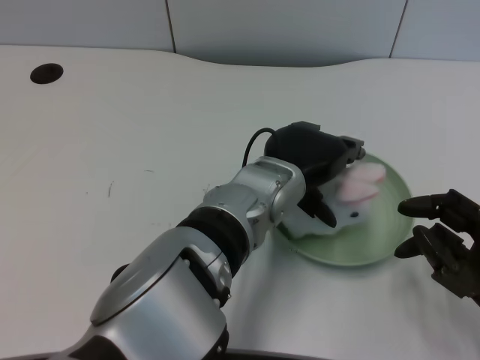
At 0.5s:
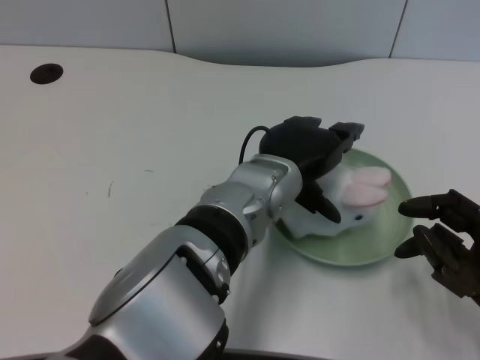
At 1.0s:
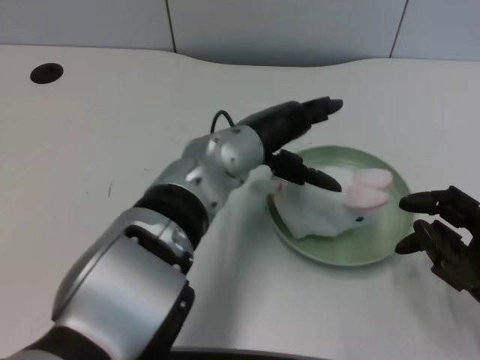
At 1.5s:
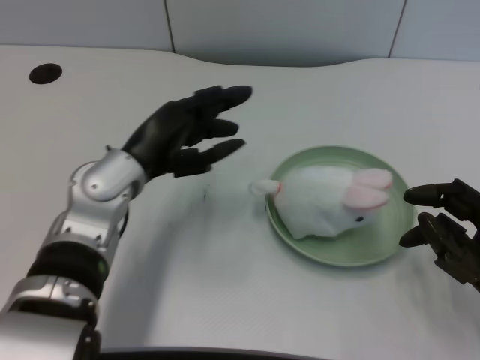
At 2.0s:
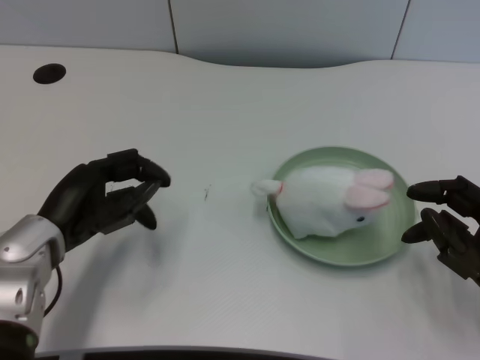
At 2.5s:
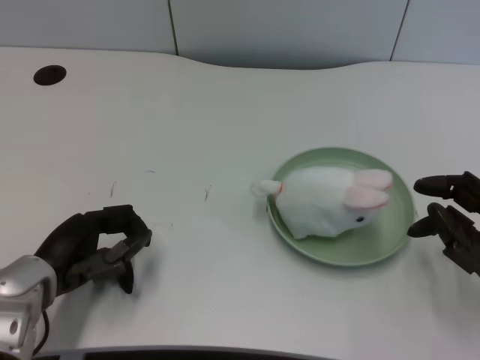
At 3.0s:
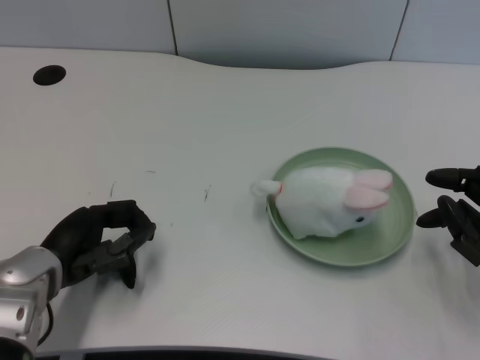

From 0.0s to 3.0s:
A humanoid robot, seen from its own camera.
Task of the whole recording: pick up the rabbit doll from the table and place it on the plate.
From 0.0s to 1.5s: The left hand moves to the left, roughly 15 cm.
From 1.5s to 3.0s: The left hand moves to the left, downward and backward, roughly 10 cm.
